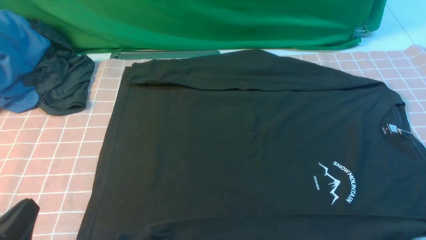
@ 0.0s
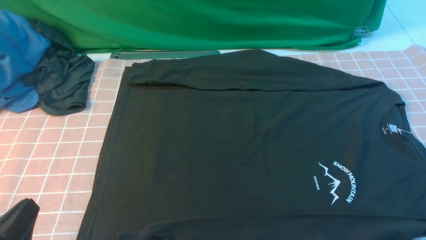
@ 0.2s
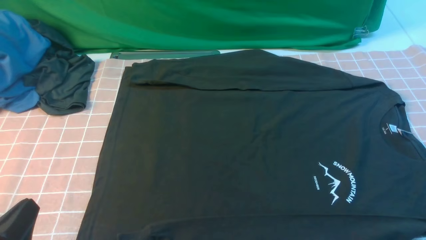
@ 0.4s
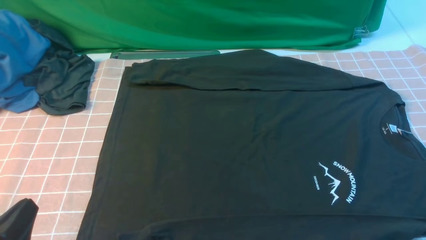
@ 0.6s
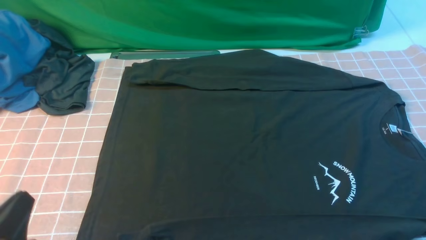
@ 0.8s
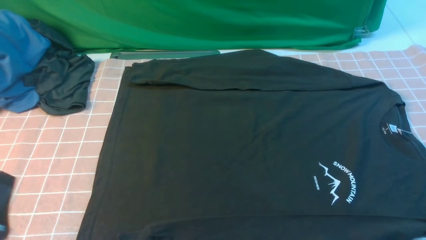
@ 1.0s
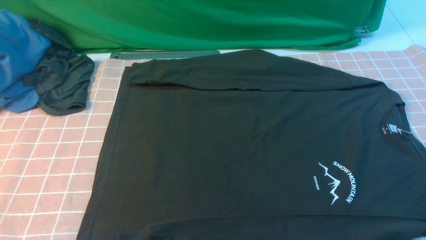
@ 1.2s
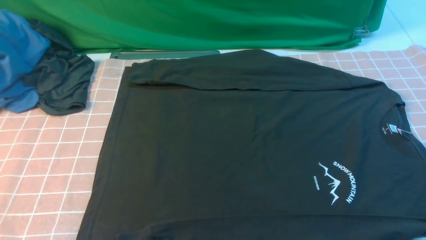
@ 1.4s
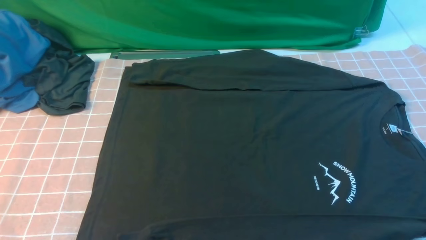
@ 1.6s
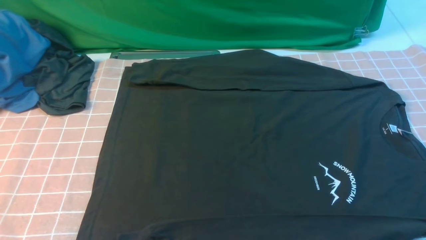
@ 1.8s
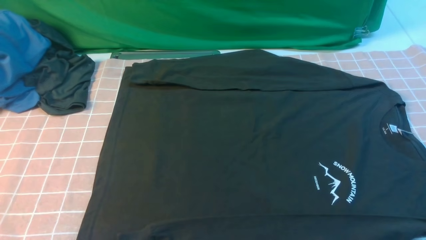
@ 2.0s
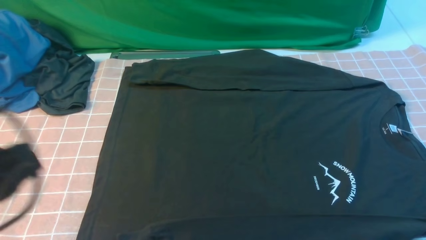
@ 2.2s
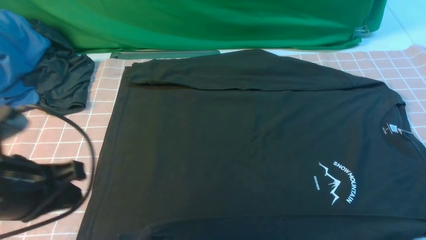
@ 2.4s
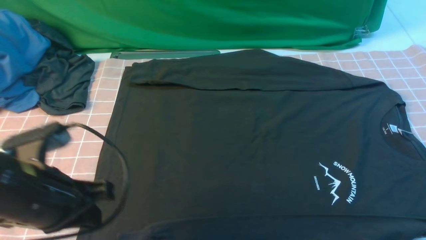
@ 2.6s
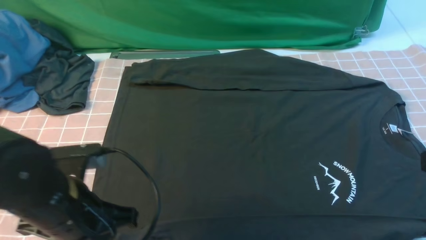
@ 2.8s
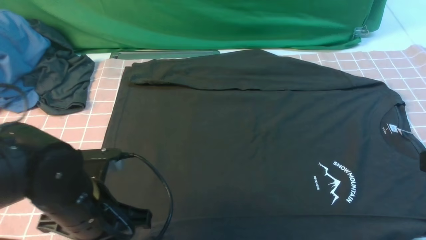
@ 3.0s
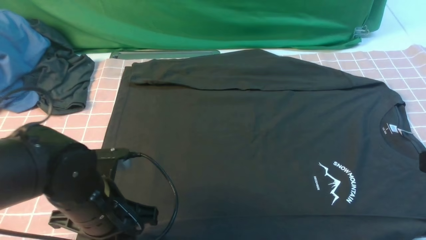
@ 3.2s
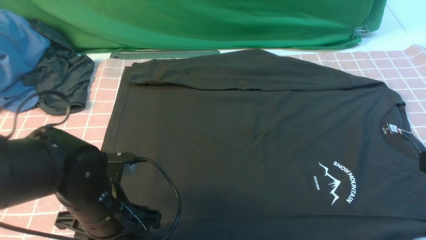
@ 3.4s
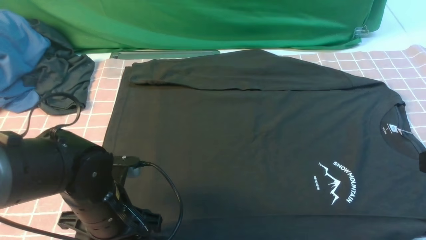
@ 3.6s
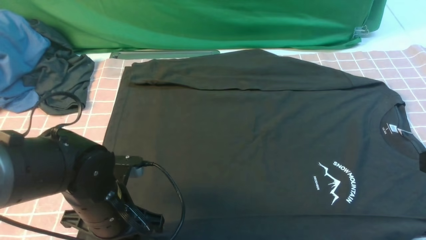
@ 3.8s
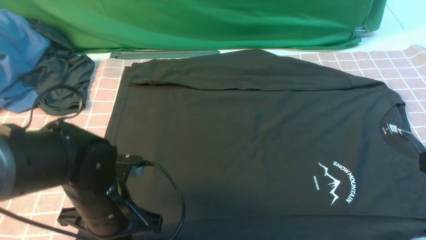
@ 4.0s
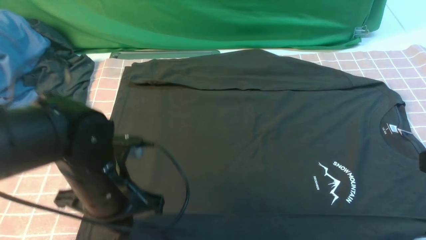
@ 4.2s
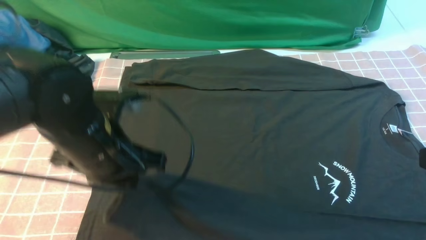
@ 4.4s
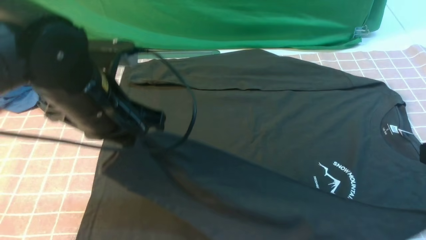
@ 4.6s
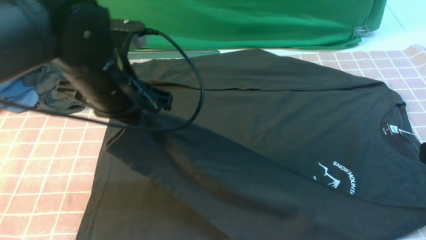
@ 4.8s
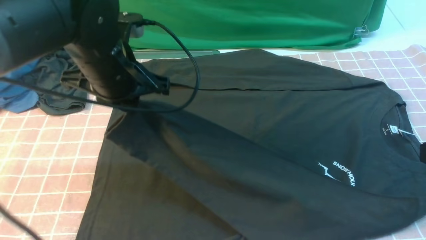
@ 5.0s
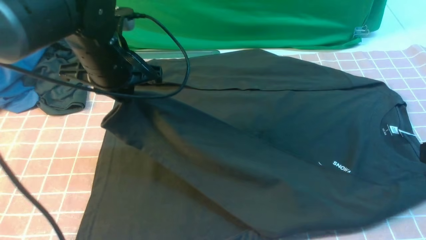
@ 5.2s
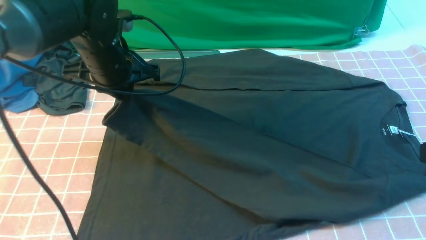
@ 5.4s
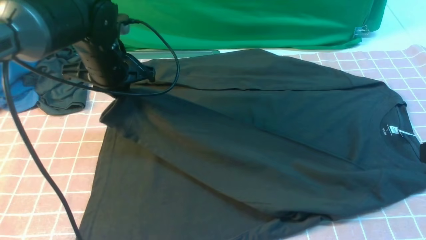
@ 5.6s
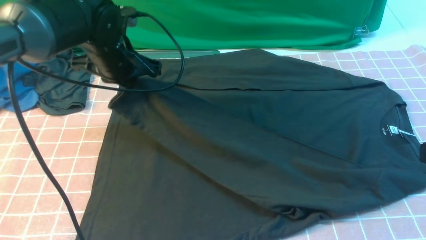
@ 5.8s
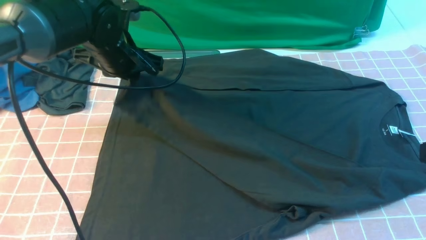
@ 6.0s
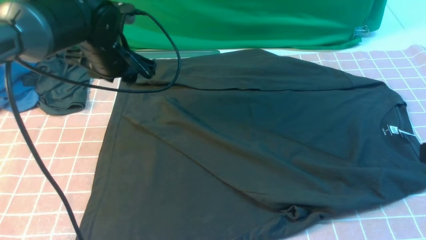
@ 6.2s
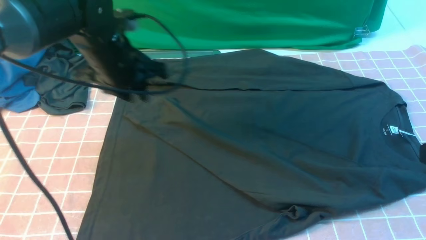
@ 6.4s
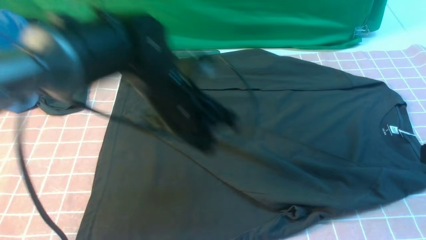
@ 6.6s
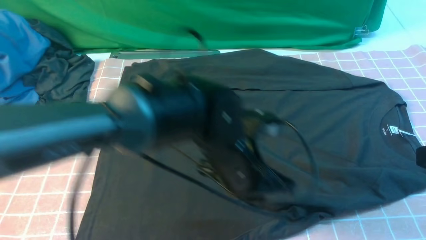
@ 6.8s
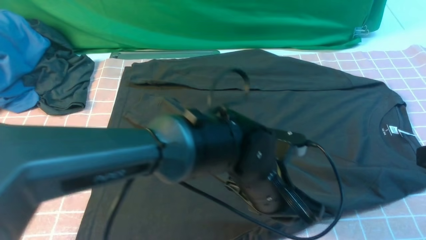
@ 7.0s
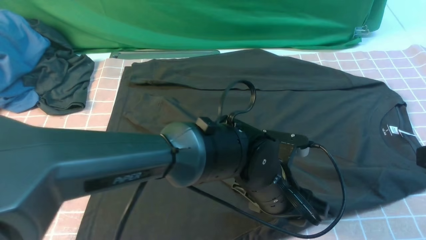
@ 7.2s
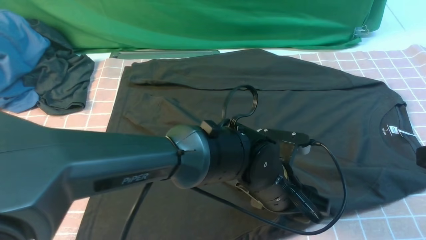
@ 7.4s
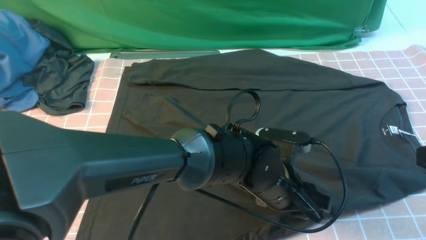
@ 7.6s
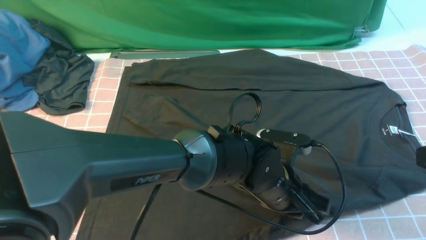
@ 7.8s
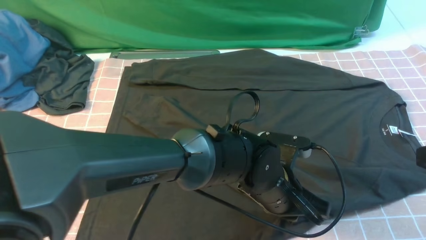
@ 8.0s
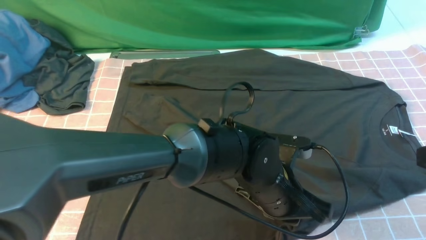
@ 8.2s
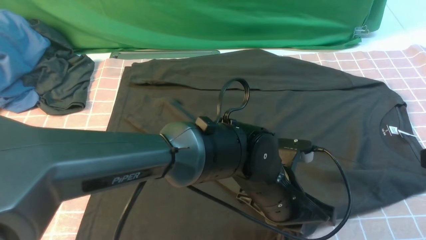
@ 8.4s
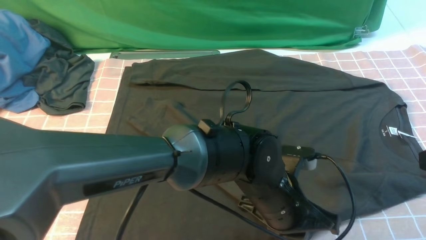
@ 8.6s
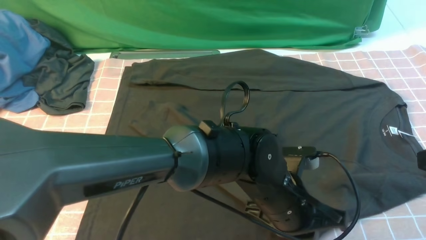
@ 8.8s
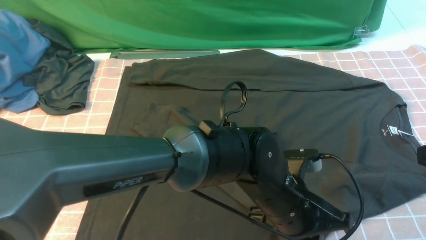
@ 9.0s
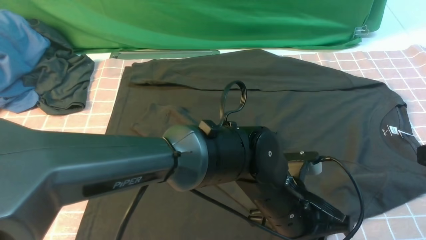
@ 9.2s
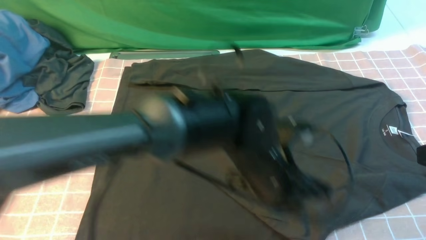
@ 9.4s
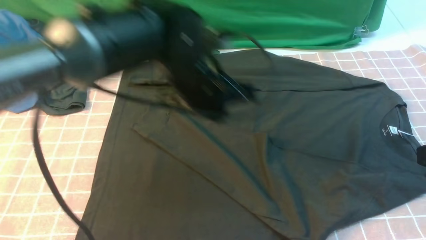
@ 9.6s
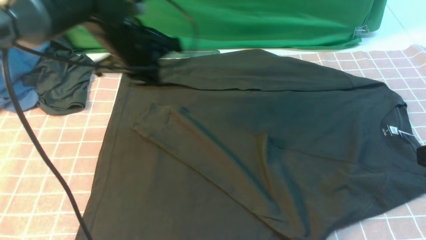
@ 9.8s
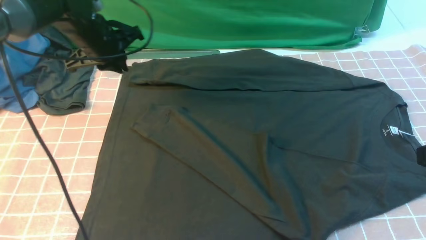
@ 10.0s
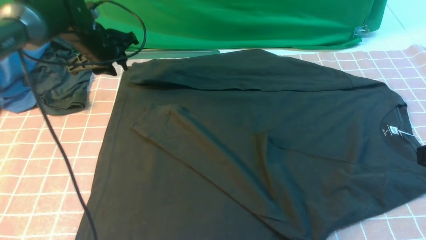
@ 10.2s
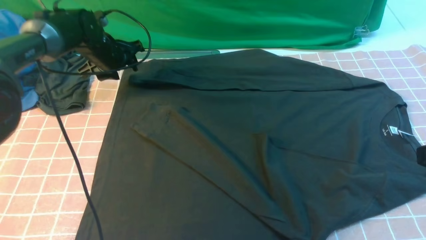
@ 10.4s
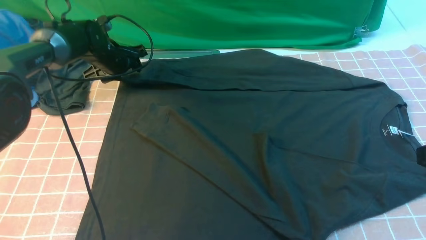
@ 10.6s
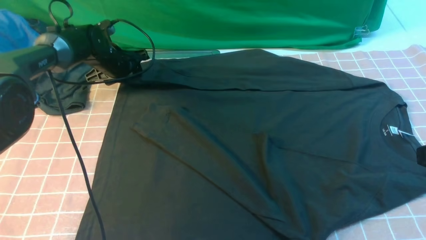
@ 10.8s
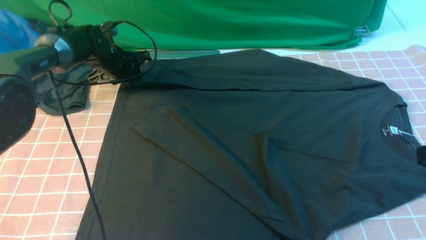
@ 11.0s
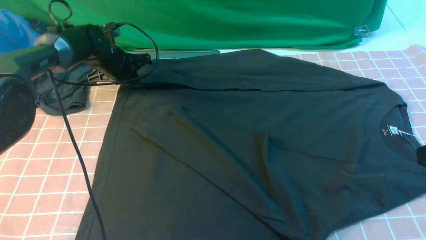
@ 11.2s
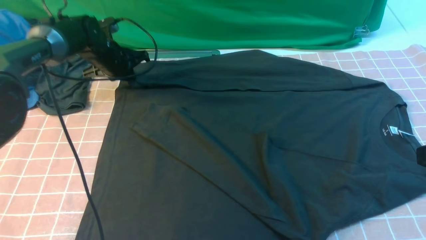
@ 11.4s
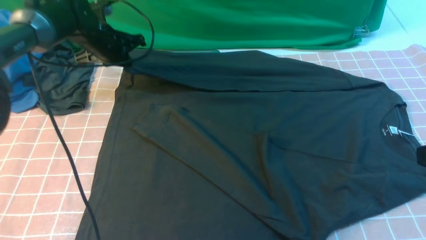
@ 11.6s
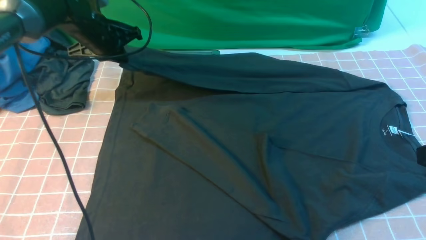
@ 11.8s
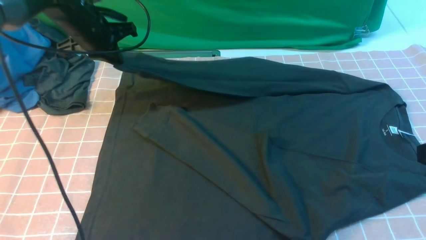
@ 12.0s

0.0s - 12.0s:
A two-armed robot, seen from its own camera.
Step, 0.0s - 4.0s: use the left arm to clamp the cuff closest to it.
Step, 4.2s - 6.2s: use the left arm to drag and place the cuff at the centered position on the left edge of the fabric.
Step, 6.4s - 11.2s: use the left arm to clamp the cuff farthest from it.
0.0s - 1.6s: The left gripper moves upward, roughly 10 cm.
1.6s - 3.0s: The left gripper shifts about 20 cm forward, to the right and downward. Meanwhile the right gripper goes about 10 cm upward and forward, and closes.
3.0s - 4.4s: The left gripper heads upward and forward, covering roughly 10 cm, and opens, then closes again.
4.4s - 6.0s: The left gripper travels forward by roughly 15 cm.
6.0s - 7.6s: The left gripper goes about 30 cm to the right, backward and downward.
7.6s - 9.0s: The left gripper closes its fingers.
9.0s - 10.4s: The left gripper is displaced to the left and forward by roughly 40 cm, and opens.
10.4s - 12.0s: The left gripper goes some 10 cm upward and backward, and closes.

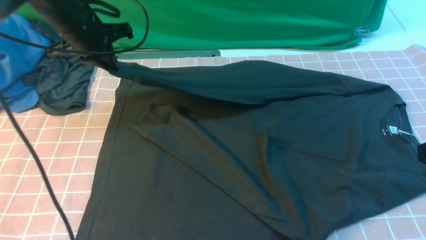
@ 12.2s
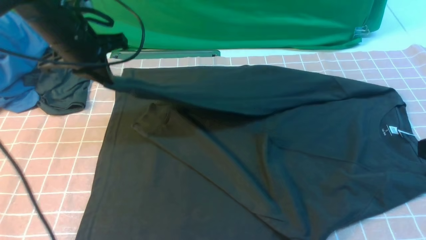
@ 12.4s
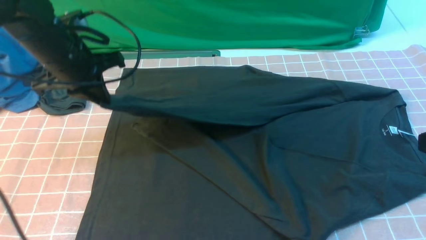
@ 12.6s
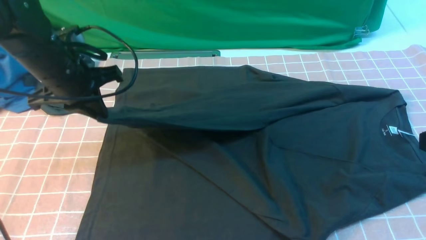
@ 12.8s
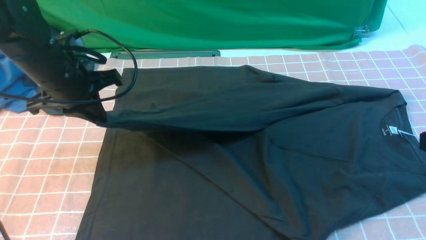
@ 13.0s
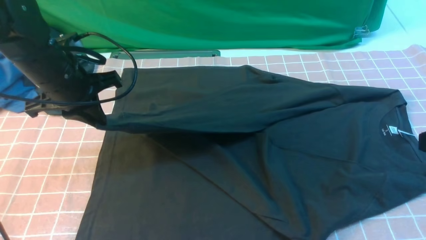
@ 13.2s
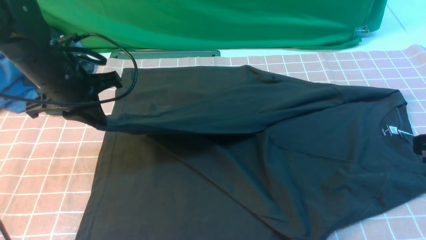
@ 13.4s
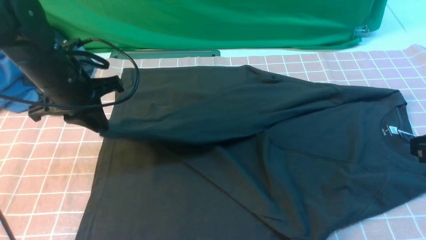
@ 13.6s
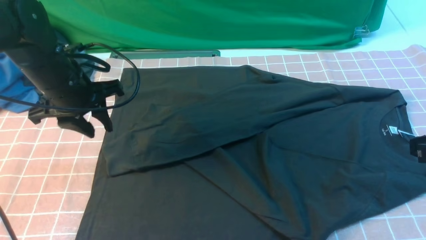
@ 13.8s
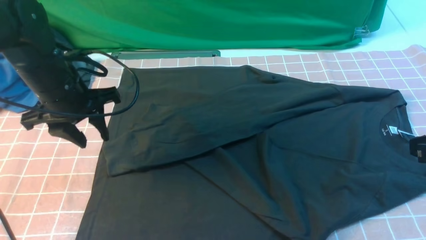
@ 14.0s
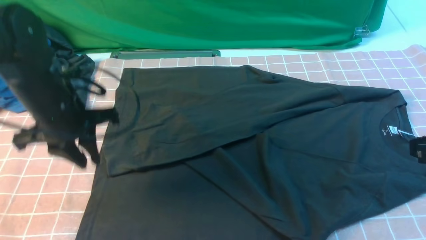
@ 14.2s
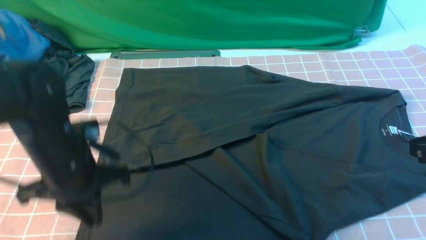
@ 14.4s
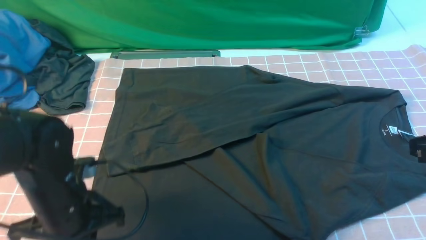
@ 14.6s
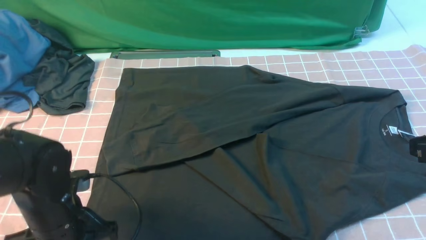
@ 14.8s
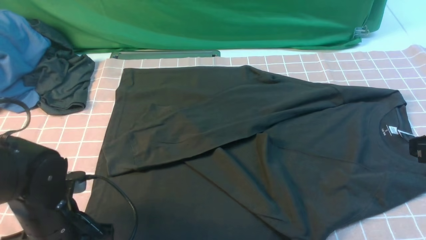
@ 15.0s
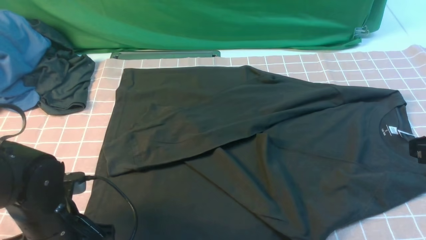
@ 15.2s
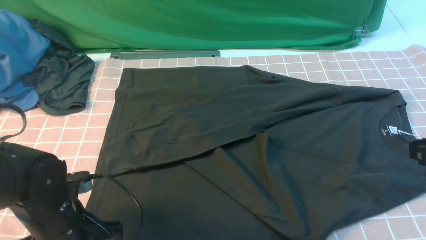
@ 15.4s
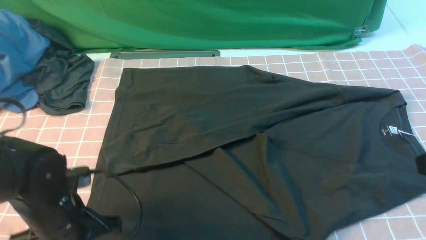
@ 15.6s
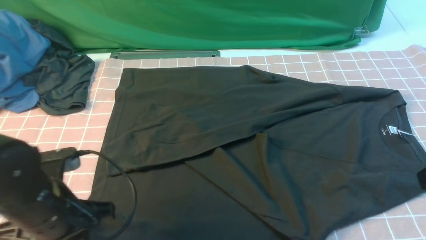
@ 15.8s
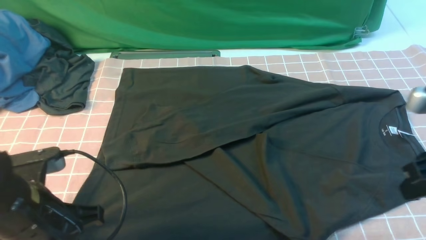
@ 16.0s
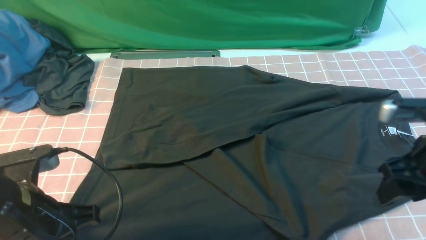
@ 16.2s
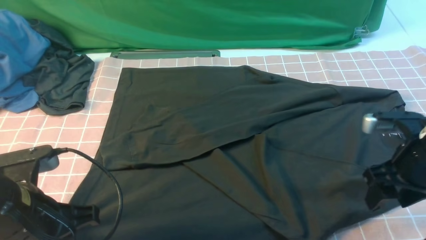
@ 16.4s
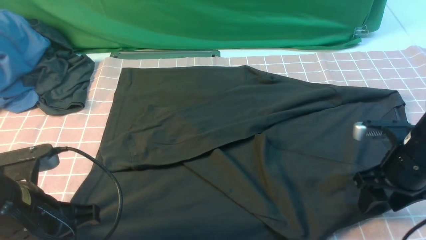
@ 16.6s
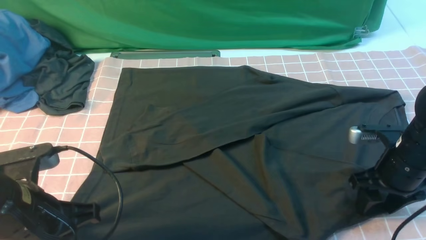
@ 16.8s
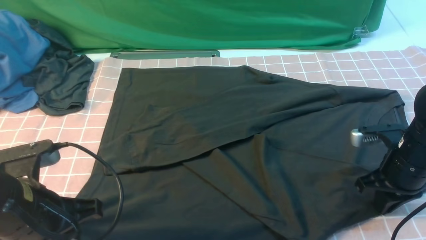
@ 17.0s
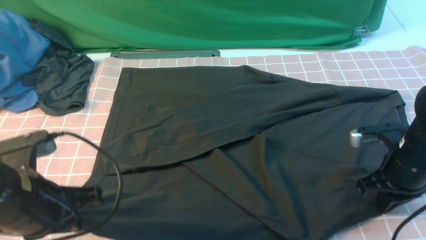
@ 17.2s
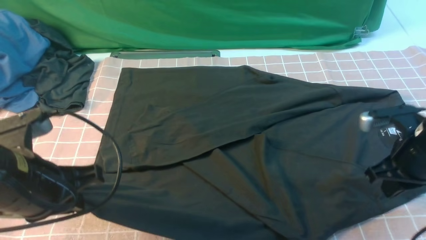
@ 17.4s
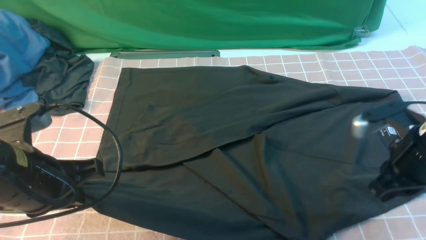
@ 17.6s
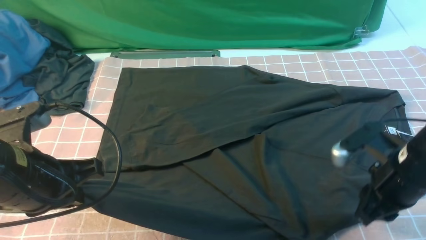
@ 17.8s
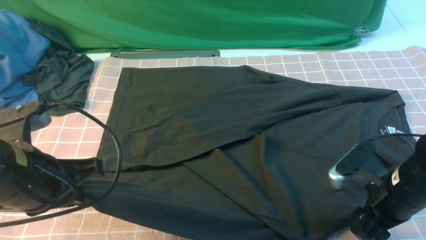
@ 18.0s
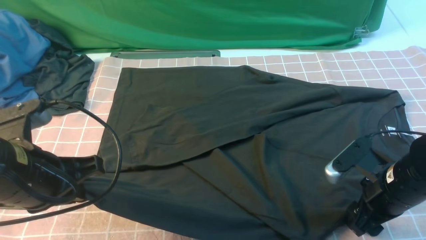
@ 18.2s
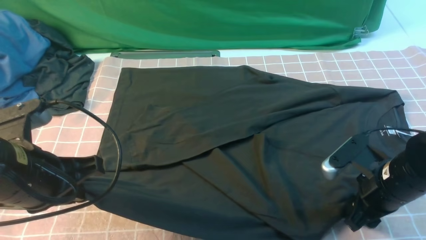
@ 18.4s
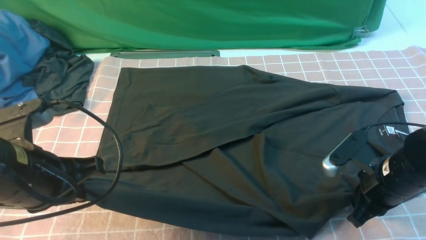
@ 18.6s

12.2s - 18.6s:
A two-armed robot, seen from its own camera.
Step, 12.2s - 13.8s: use the left arm to drag and drop the cuff onto the cuff closest to the left arm.
Step, 14.0s - 18.4s: use both arms simultaneously to clamp the lower edge of the clothing fabric.
12.2s - 13.8s: The left gripper shifts approximately 10 cm backward, and opens.
13.8s - 15.4s: The left gripper moves backward and downward, roughly 20 cm, and opens, then closes once more.
15.4s - 17.0s: The left gripper heads upward, covering some 10 cm. The right gripper moves downward and forward, some 20 cm, and opens and closes again.
17.0s - 18.6s: The right gripper shifts by about 5 cm, and opens and closes again.
